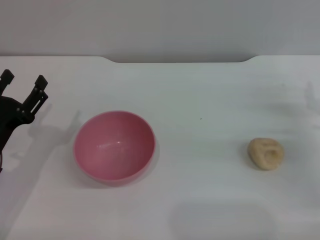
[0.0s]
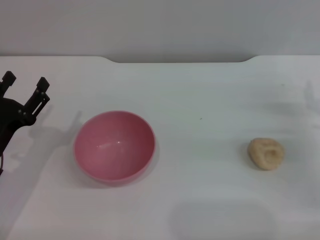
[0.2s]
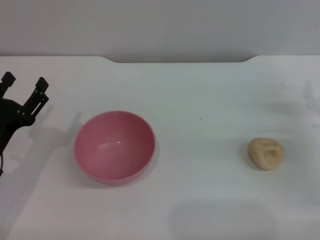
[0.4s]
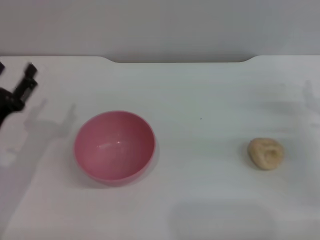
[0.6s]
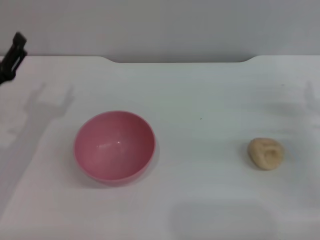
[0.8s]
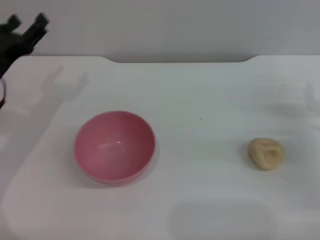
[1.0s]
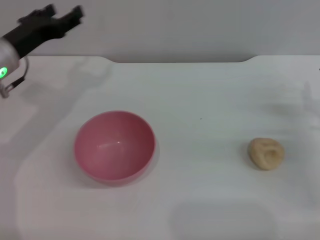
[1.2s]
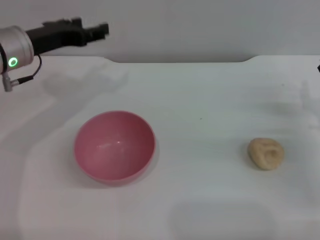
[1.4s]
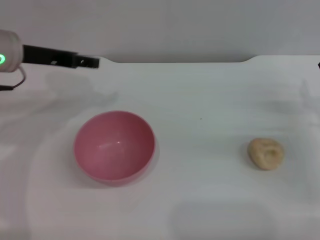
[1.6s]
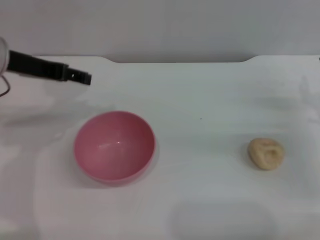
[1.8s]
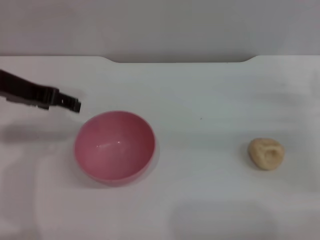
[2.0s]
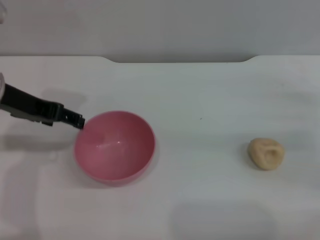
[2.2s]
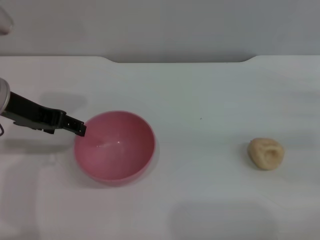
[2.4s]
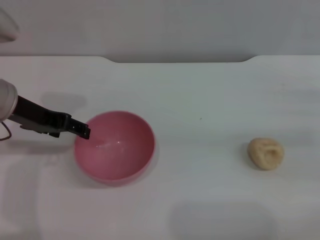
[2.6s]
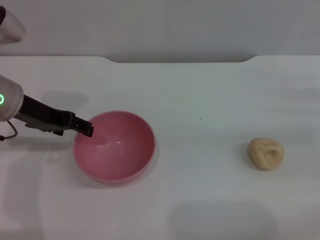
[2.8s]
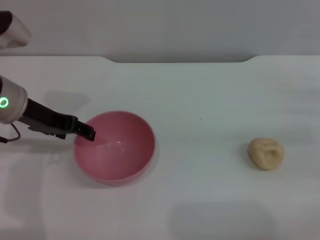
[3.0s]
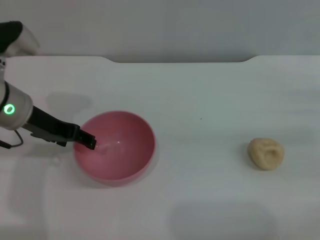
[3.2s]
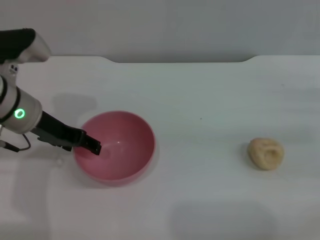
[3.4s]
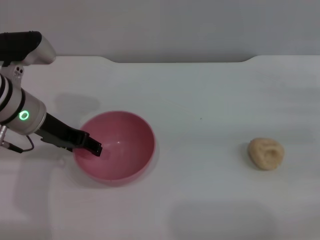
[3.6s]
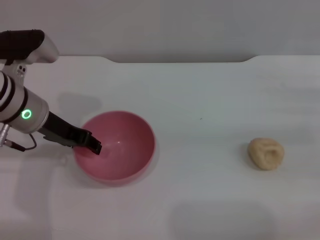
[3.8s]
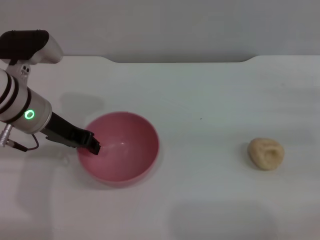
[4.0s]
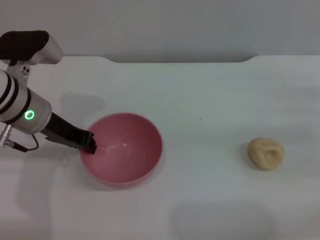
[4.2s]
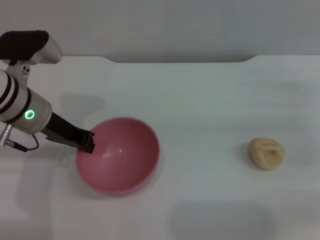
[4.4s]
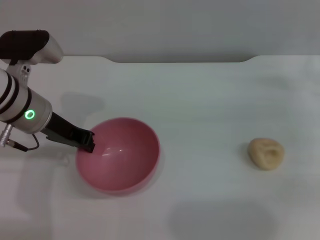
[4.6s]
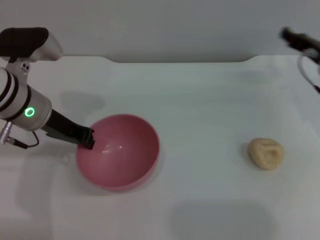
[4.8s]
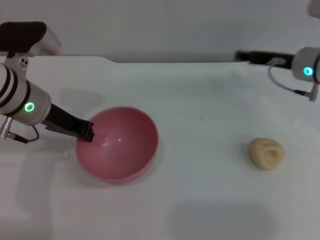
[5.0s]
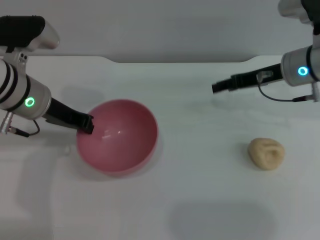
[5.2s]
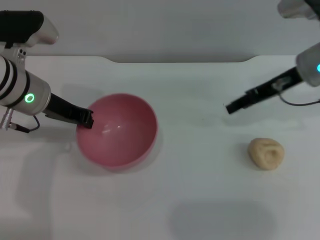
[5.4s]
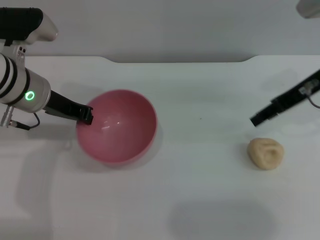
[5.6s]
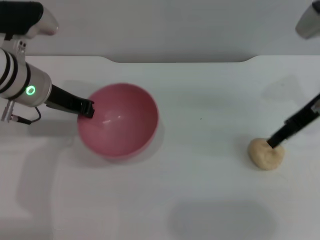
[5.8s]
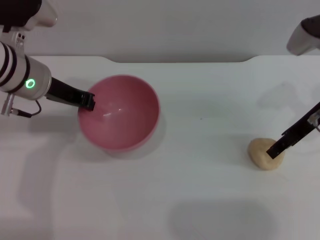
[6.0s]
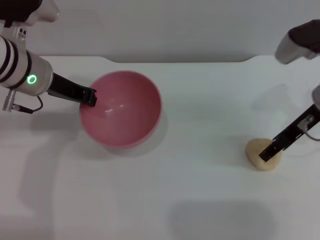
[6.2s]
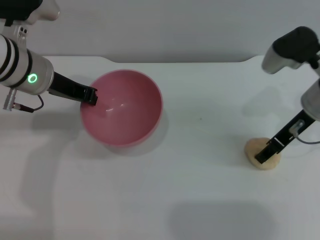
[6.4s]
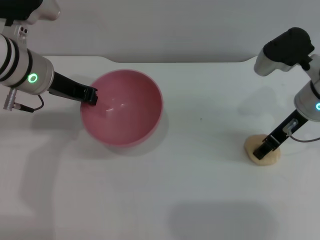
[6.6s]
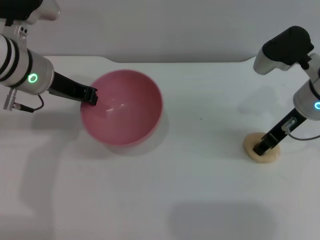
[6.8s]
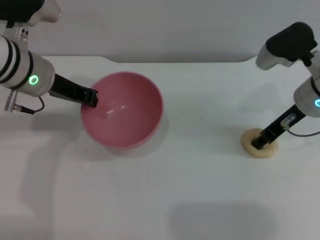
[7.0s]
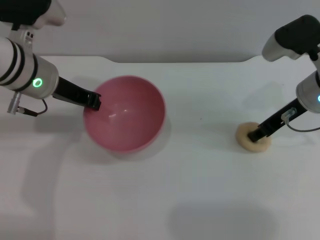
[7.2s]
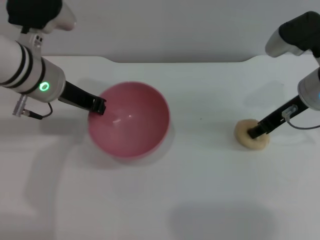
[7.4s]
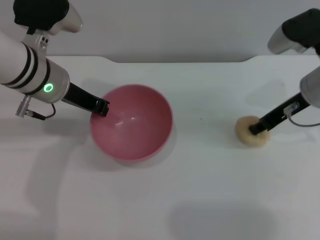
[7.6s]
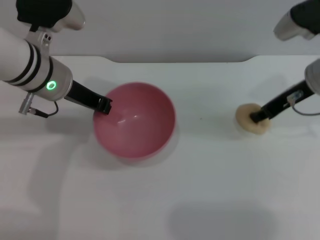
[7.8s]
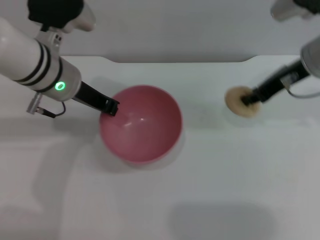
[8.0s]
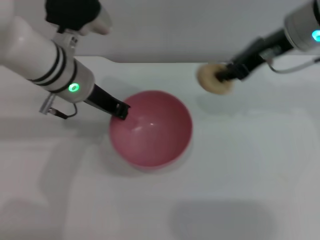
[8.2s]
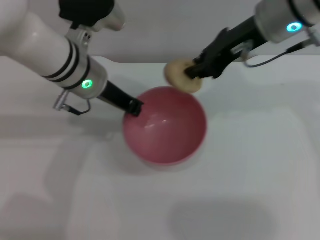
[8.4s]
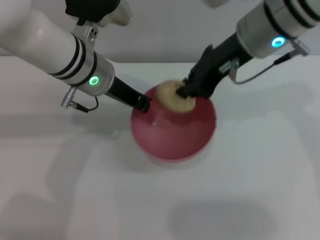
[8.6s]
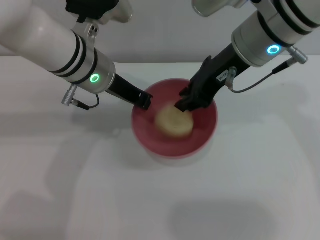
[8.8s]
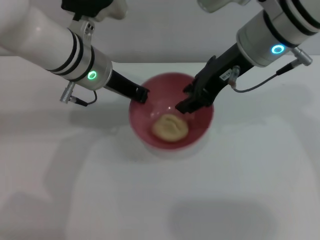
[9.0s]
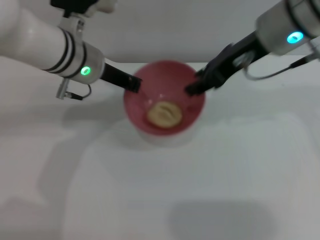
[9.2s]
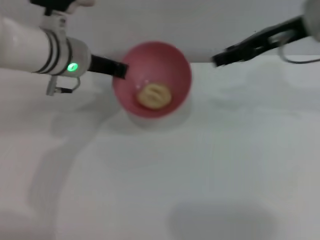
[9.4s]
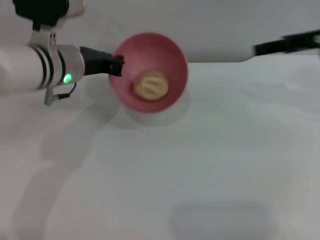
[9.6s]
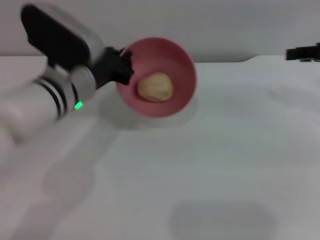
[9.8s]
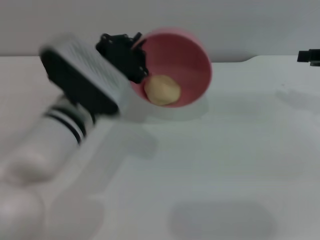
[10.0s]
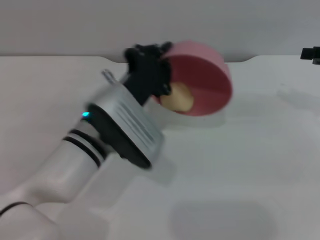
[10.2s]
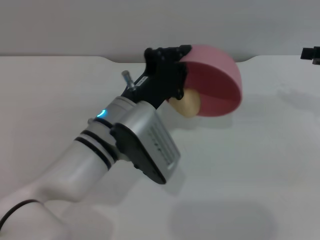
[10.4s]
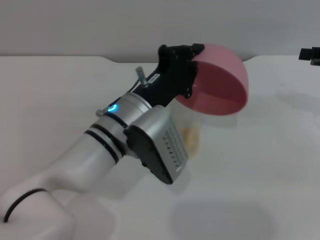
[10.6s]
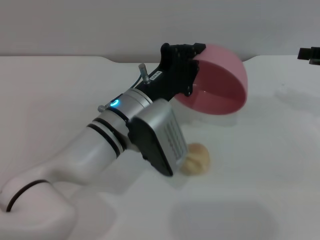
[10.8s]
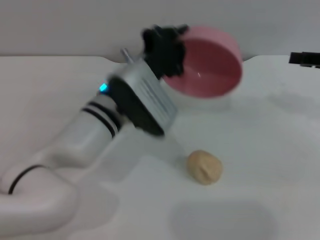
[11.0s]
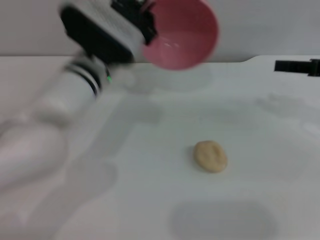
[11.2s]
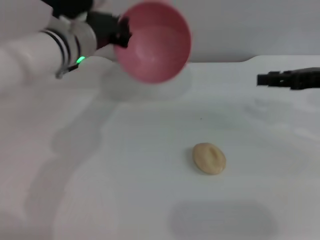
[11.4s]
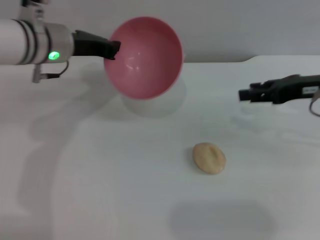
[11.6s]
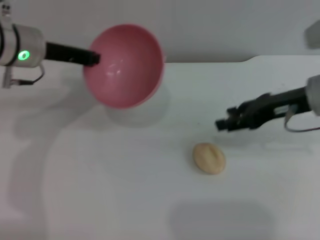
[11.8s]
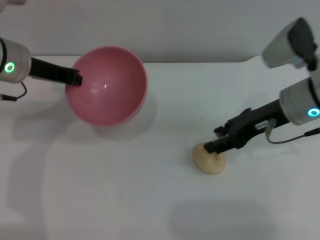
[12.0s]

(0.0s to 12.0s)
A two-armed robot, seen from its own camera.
Task of the whole recording: put the egg yolk pastry into the pink bowl and pour it out repeatedly.
Step, 0.0s - 5.4s: Pick up the bowl with the left gripper.
Step, 5.6s - 7.8s: Pick up the egg yolk pastry with the right gripper.
Step, 8.0s - 9.0s: Place the egg yolk pastry into the bowl.
Step, 9.2s - 10.8s: Pour the egg yolk pastry out of bowl.
0.0s - 1.6s: The left gripper is displaced upward and forward by about 20 cm.
3.0s - 4.4s: The left gripper closes.
4.4s - 6.0s: The right gripper travels to the left and upward by approximately 10 cm.
6.0s - 7.6s: The right gripper closes.
7.6s - 9.0s: The left gripper is displaced to the right by roughly 5 cm; the right gripper goes approximately 15 cm to the left and upward.
9.0s - 10.4s: The left gripper travels backward and downward by some 15 cm; the right gripper travels to the right by some 25 cm.
10.4s - 12.0s: The left gripper is displaced to the left, forward and upward by roughly 20 cm. Meanwhile the right gripper moves to the left, some 15 cm.

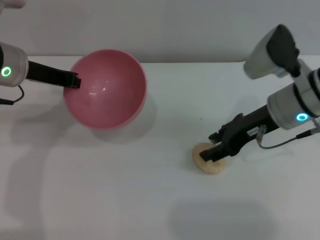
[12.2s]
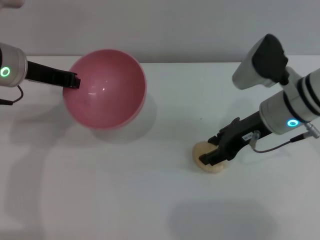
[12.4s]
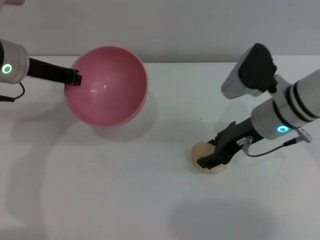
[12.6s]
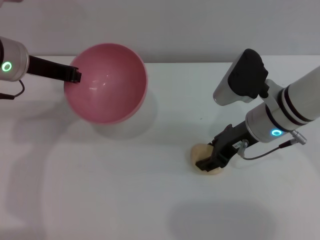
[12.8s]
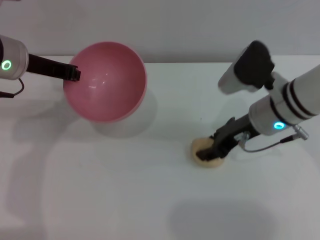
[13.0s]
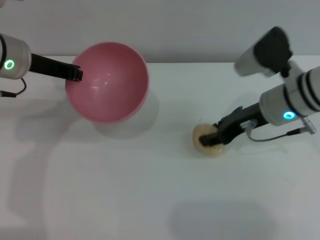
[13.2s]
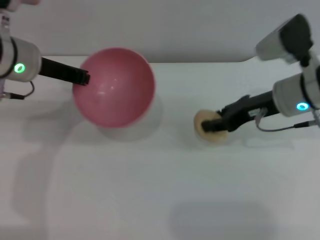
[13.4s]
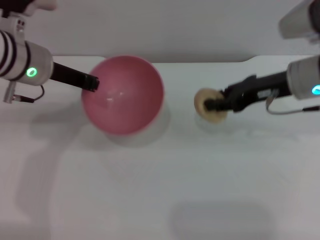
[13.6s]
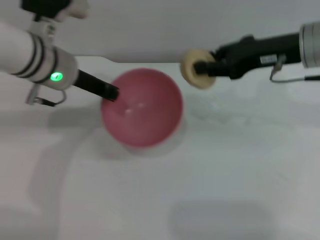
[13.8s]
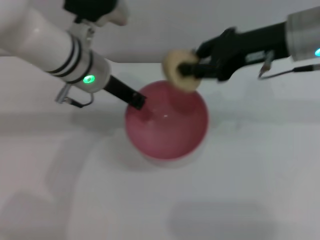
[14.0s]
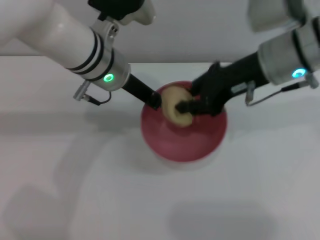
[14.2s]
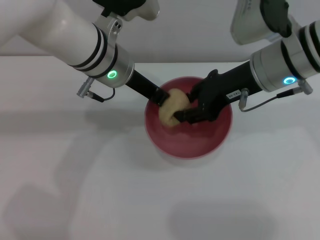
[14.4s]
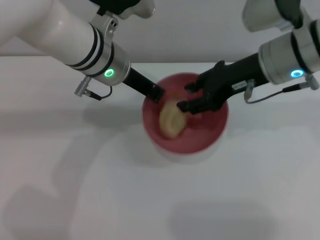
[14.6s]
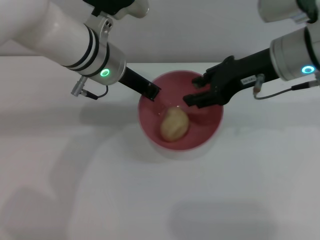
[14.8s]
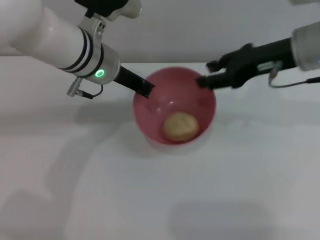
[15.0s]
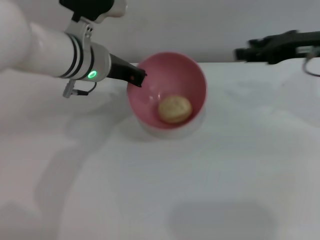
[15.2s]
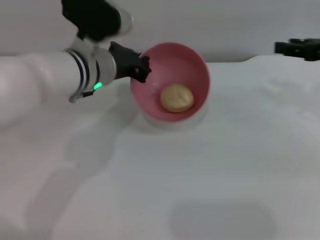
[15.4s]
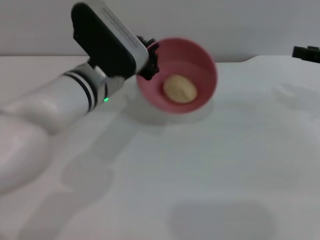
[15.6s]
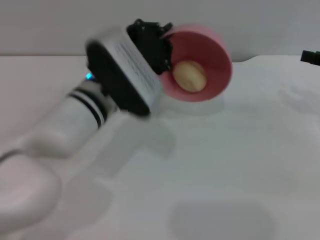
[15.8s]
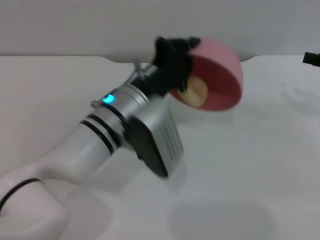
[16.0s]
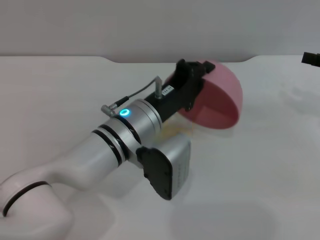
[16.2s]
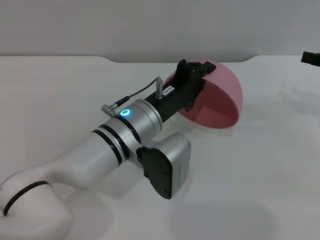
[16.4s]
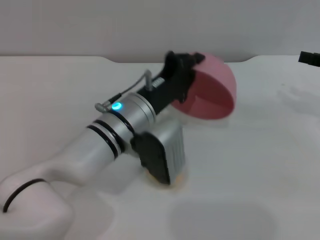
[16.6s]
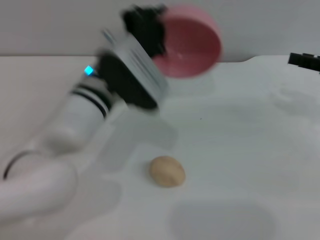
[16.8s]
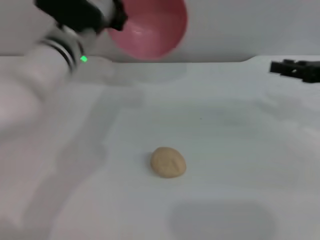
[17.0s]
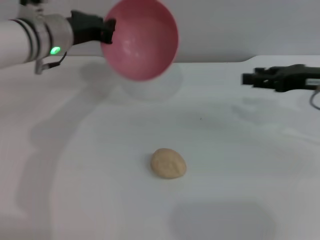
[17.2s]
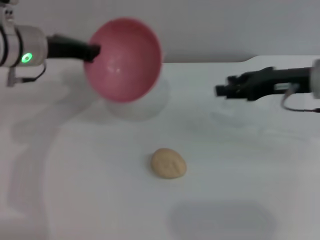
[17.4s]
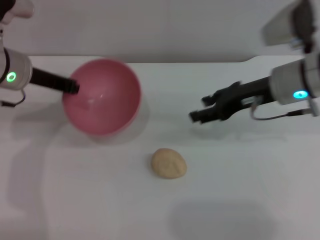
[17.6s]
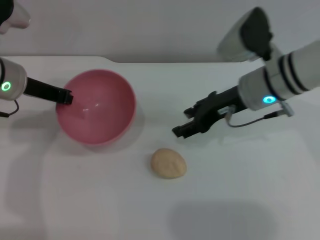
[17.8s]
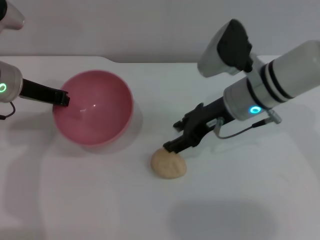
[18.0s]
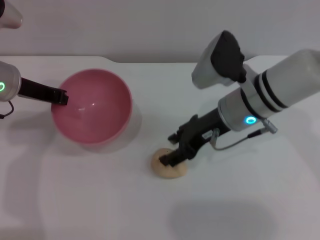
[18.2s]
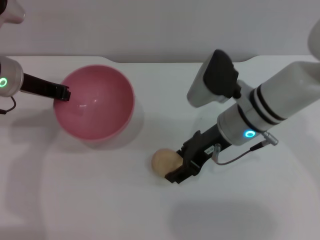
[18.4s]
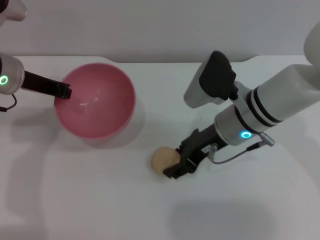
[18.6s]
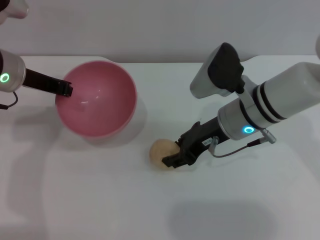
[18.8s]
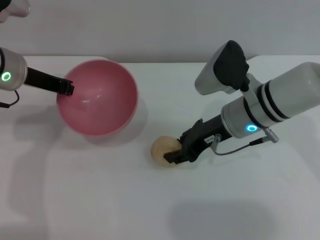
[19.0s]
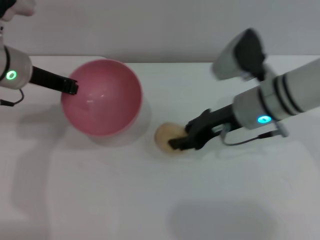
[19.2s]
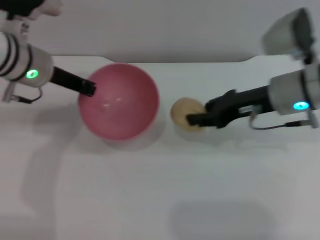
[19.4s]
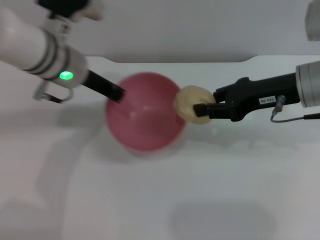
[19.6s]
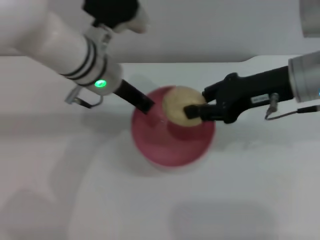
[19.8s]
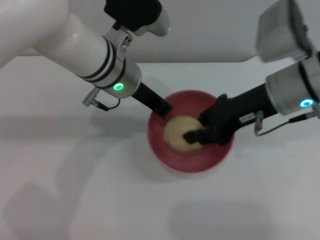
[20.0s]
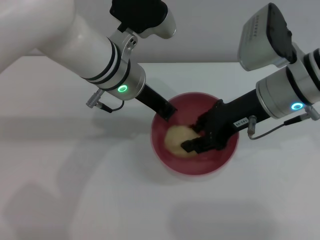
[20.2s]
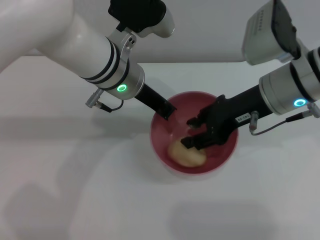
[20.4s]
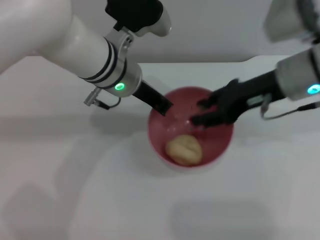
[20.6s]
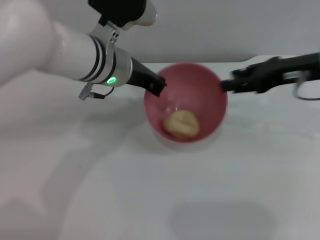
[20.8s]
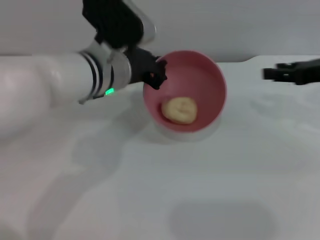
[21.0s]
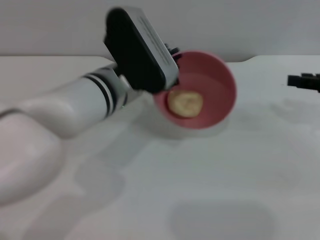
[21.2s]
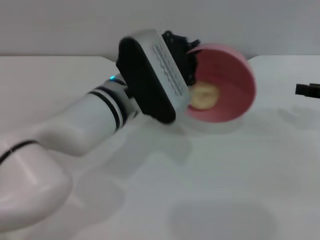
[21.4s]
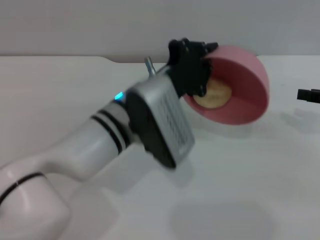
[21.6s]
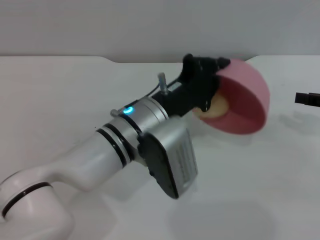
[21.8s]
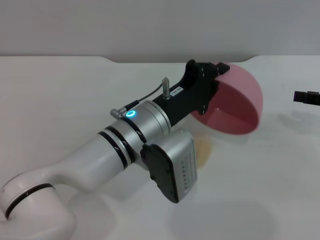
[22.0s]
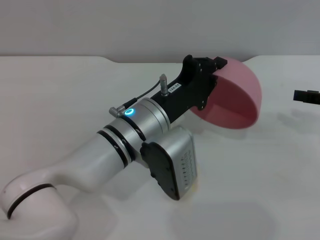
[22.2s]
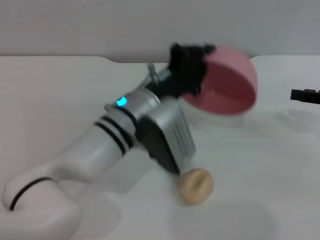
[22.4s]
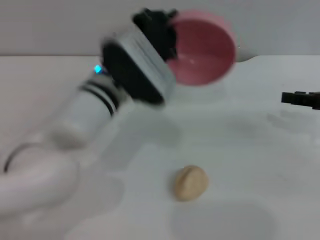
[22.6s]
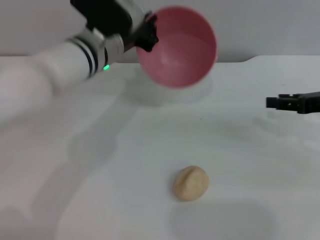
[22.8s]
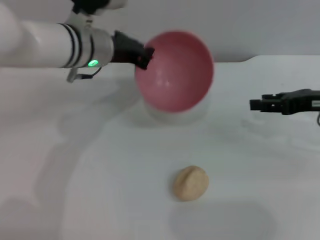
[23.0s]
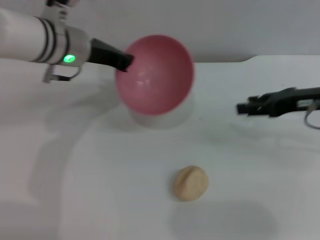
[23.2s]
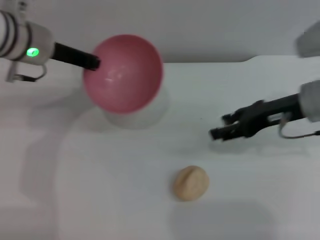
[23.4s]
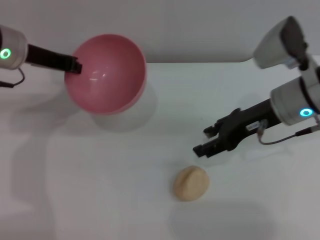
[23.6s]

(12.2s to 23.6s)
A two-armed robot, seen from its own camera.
Task of the whole recording: put the egg yolk pastry into the pink bowl and pour it out repeatedly.
Step, 13.6s - 14.8s: Place the egg yolk pastry into the bowl.
Step, 15.2s - 16.6s: Pour the egg yolk pastry out of bowl.
Step, 16.8s - 19.4s: Pick up the egg yolk pastry with the right gripper.
Step, 19.6s - 20.6s: Place the egg yolk pastry into the bowl.
Step, 20.8s - 22.2s: Pour the egg yolk pastry out of bowl.
12.2s - 13.6s: The right gripper closes up.
13.6s - 15.0s: The left gripper heads to the right, covering approximately 10 cm. The right gripper shifts about 5 cm upward.
15.0s - 16.4s: The left gripper shifts roughly 15 cm backward and downward; the right gripper moves to the right, roughly 15 cm.
16.4s - 17.8s: The left gripper moves to the left, forward and upward, some 20 cm. Meanwhile the right gripper moves to the left, about 20 cm.
17.8s - 19.4s: The right gripper closes.
19.4s - 20.8s: The left gripper travels to the right by approximately 10 cm. Meanwhile the right gripper travels to the right by roughly 5 cm, and opens up.
20.8s - 22.2s: The left gripper shifts some 10 cm backward and downward. The right gripper goes approximately 15 cm to the right and downward.
22.2s - 23.6s: The left gripper goes about 25 cm to the left, forward and upward; the right gripper goes some 15 cm to the left.
